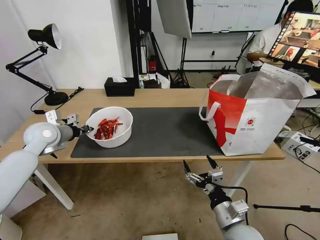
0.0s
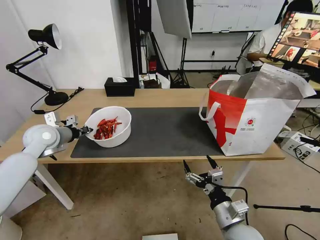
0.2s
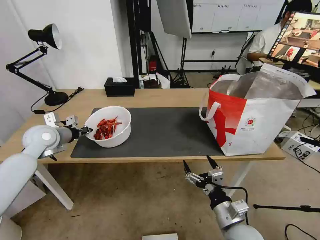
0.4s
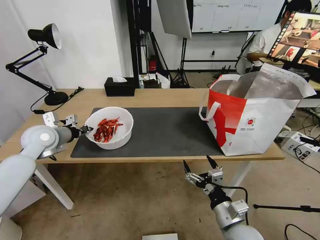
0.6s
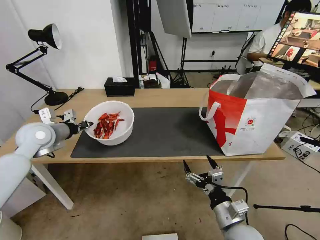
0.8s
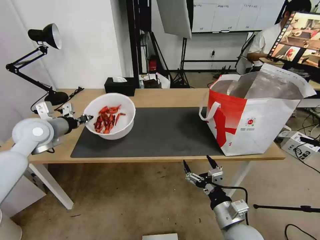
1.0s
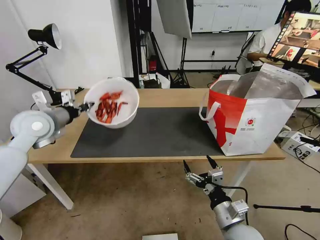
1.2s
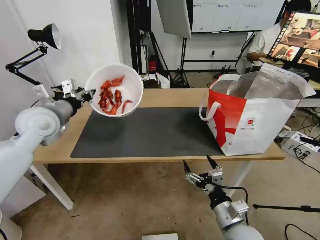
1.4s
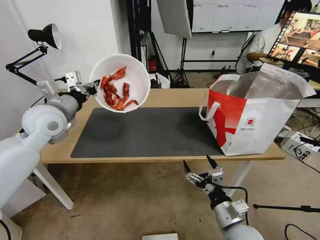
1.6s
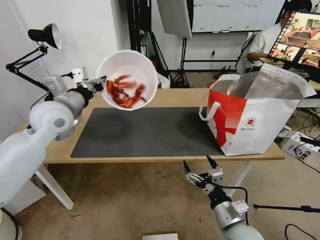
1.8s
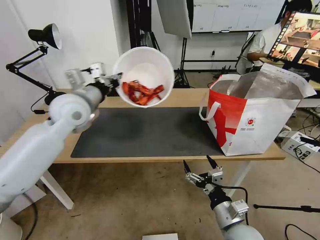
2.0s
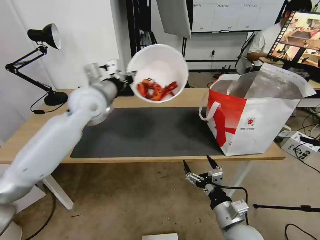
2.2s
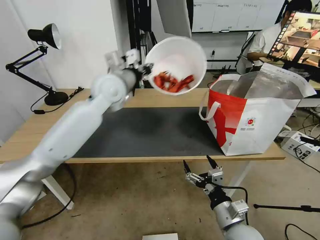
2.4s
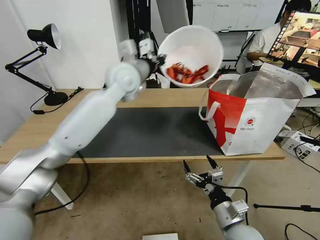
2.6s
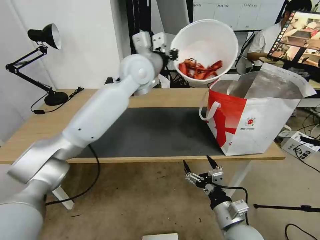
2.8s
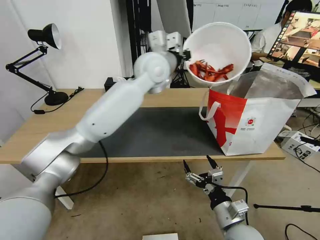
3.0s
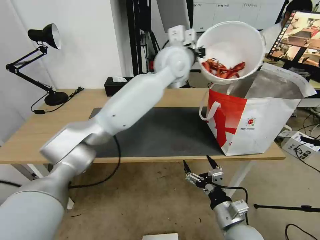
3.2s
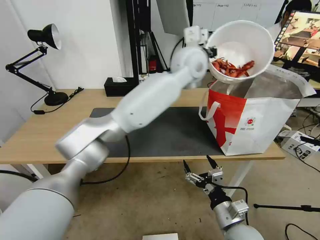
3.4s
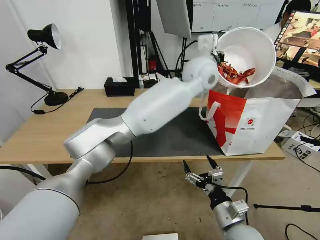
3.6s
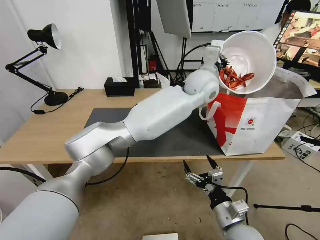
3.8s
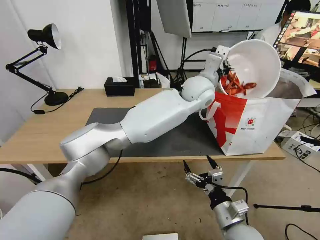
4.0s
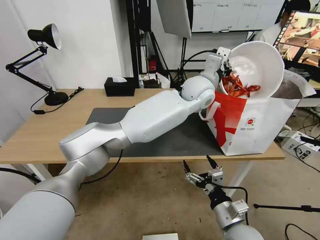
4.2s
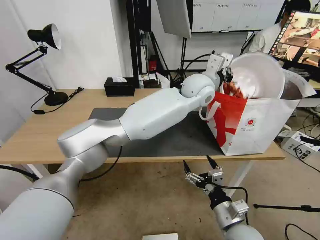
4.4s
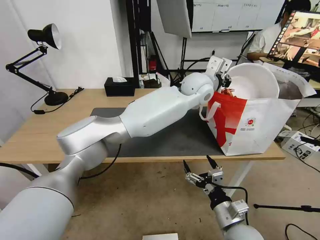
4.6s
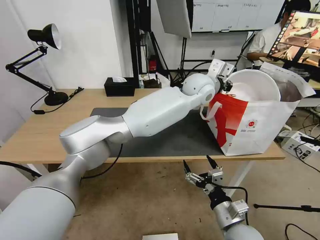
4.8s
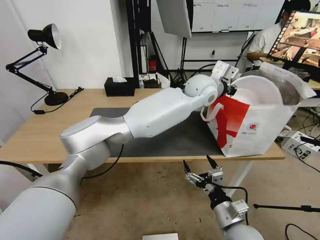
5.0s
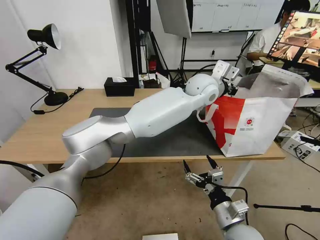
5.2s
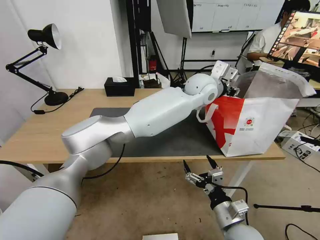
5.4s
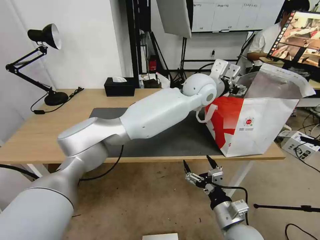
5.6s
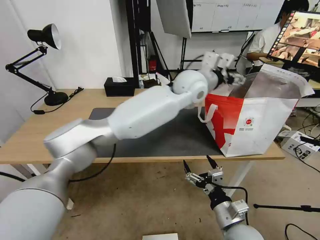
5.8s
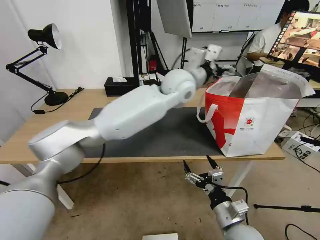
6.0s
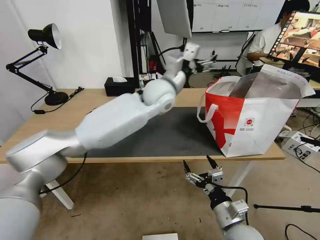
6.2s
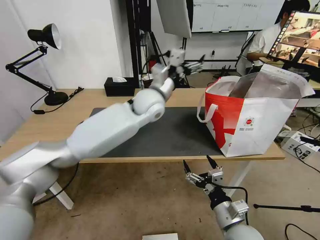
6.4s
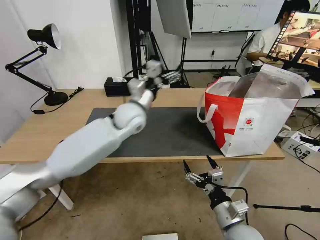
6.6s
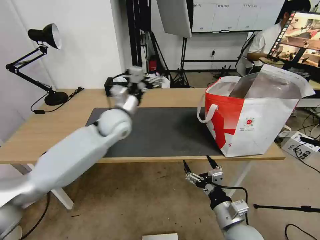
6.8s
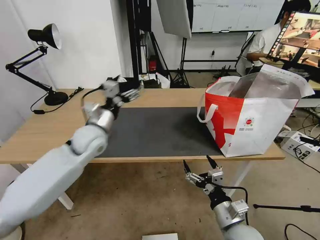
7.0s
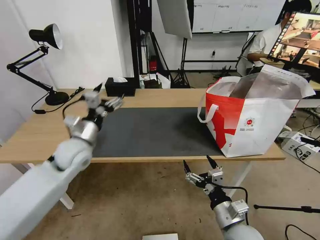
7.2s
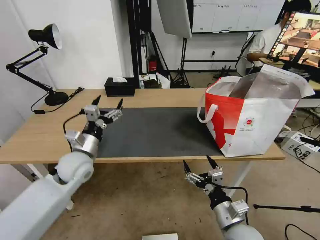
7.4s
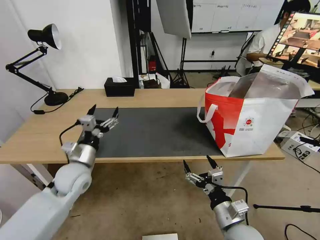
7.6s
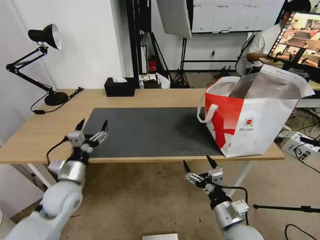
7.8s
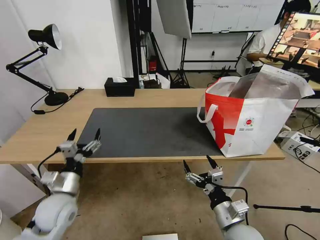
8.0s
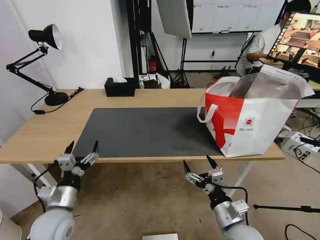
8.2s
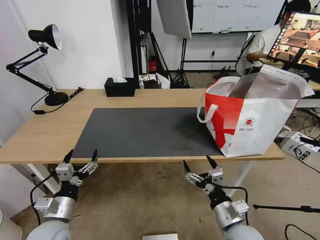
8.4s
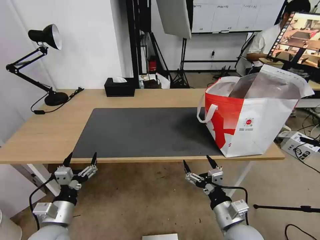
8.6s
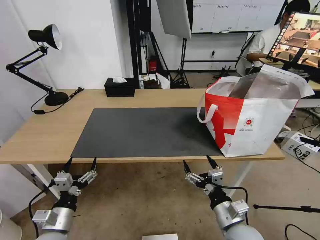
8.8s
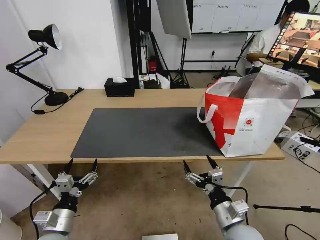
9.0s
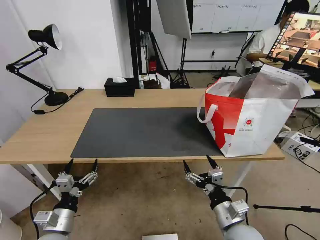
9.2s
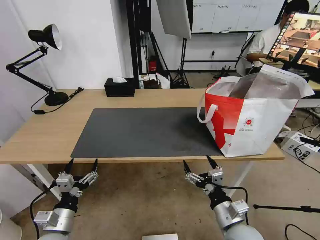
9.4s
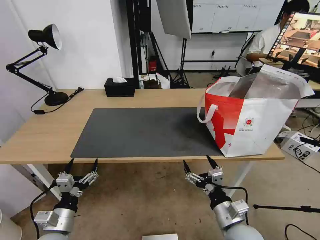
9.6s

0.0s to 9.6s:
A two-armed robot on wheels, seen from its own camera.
Task of the whole recording: Pick up the trash from the table and place it into the takeout bag.
0.0s to 1.6s: The left gripper is displaced upward and to the right by approximately 10 cm.
1.6s to 3.2s: The left gripper travels to the right by some 35 cm.
3.2s to 4.8s: The left gripper is displaced to the right and downward by approximately 10 cm.
4.8s to 6.4s: The left gripper heads to the left, covering approximately 15 cm, and opens.
6.4s to 8.0s: The left gripper goes some 40 cm to the left, backward and downward.
8.0s to 9.6s: The left gripper moves backward and downward, approximately 10 cm.

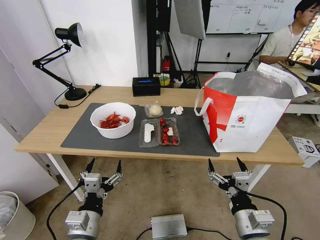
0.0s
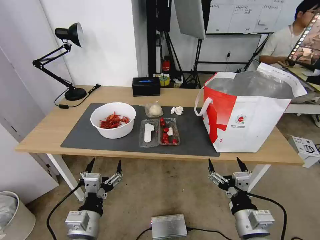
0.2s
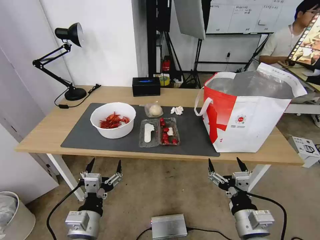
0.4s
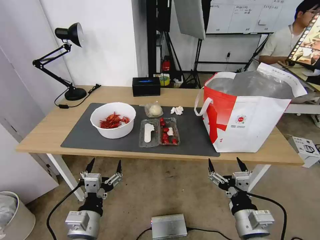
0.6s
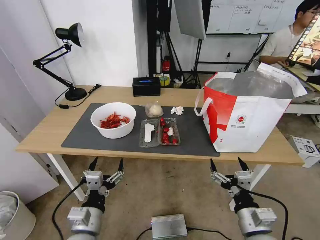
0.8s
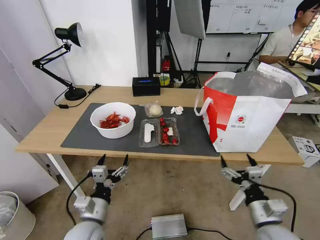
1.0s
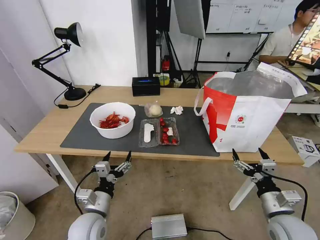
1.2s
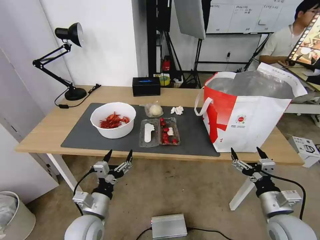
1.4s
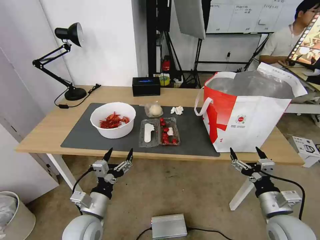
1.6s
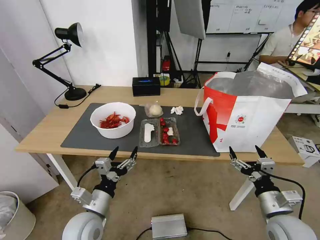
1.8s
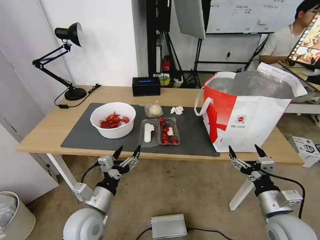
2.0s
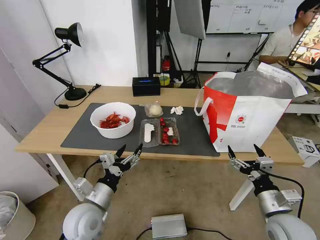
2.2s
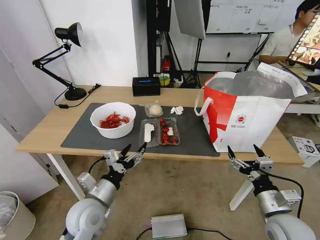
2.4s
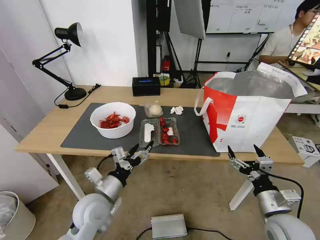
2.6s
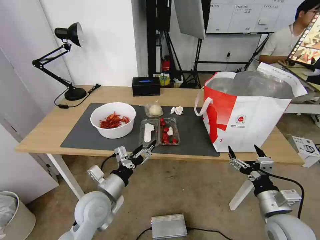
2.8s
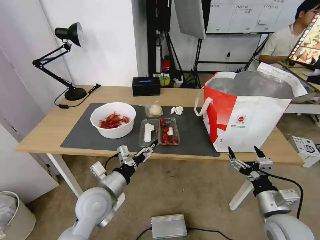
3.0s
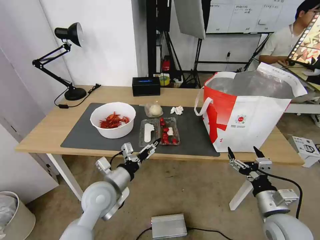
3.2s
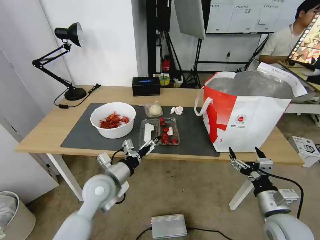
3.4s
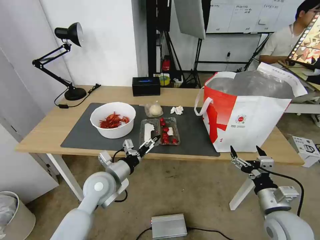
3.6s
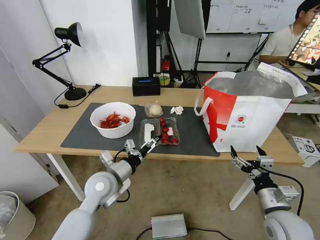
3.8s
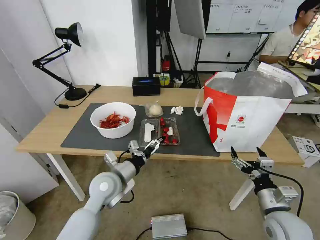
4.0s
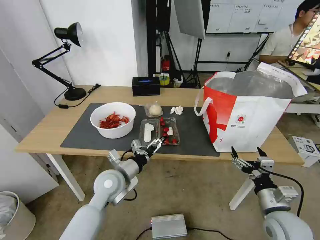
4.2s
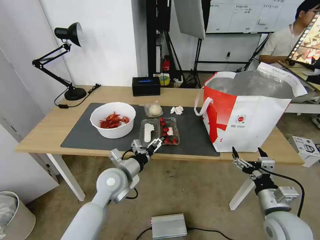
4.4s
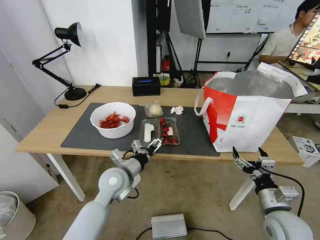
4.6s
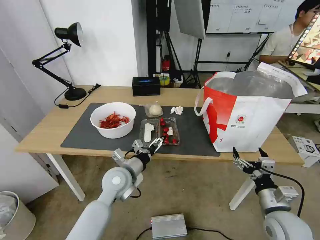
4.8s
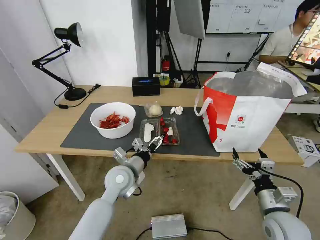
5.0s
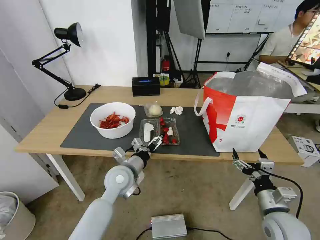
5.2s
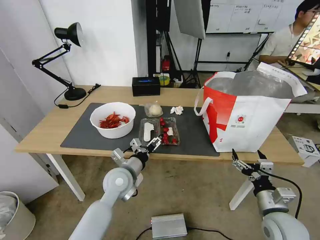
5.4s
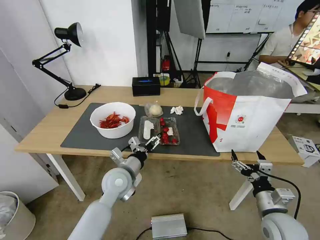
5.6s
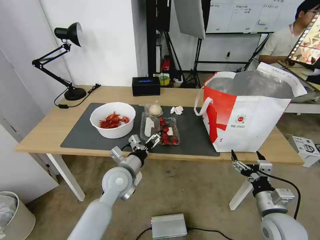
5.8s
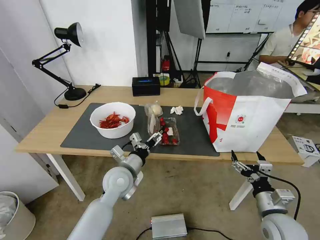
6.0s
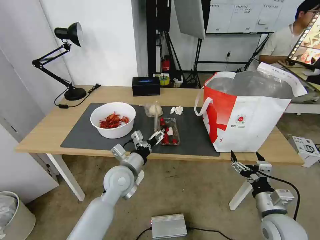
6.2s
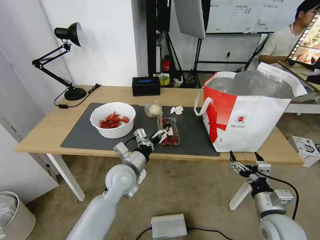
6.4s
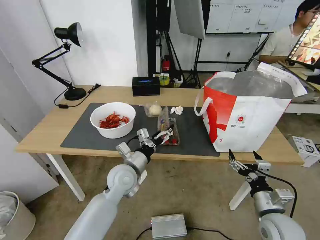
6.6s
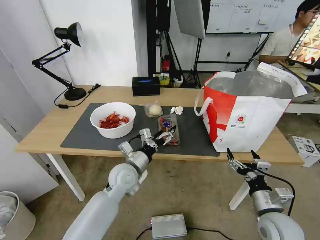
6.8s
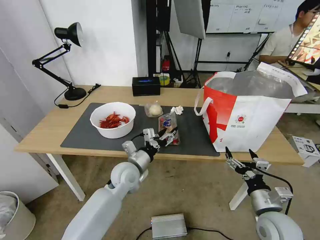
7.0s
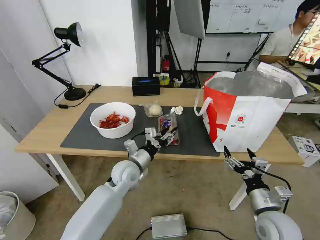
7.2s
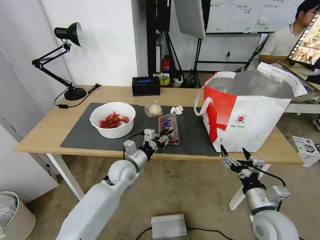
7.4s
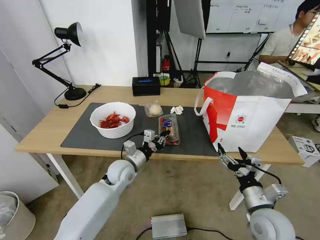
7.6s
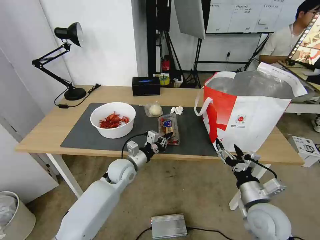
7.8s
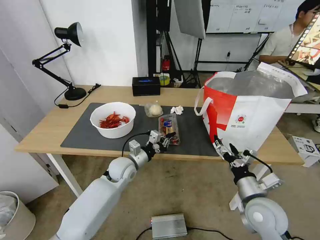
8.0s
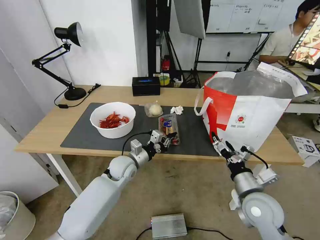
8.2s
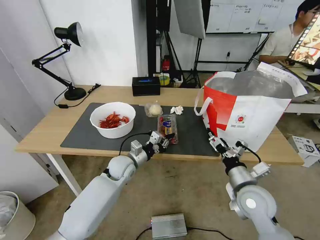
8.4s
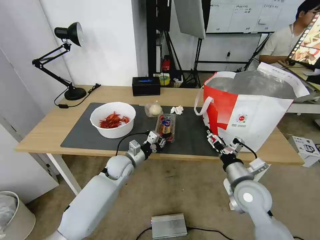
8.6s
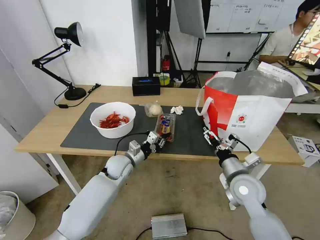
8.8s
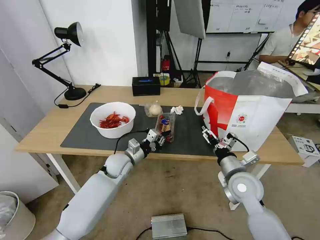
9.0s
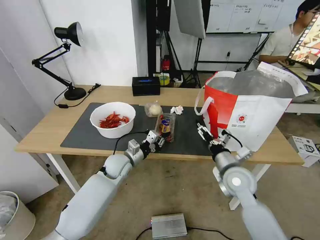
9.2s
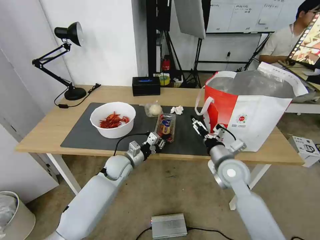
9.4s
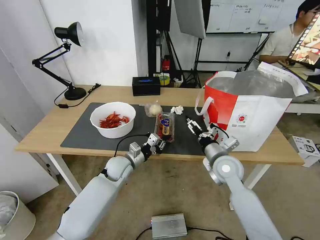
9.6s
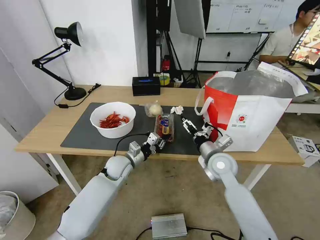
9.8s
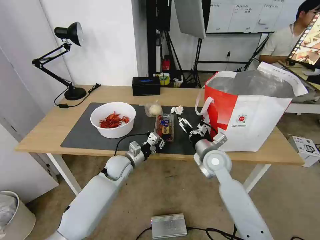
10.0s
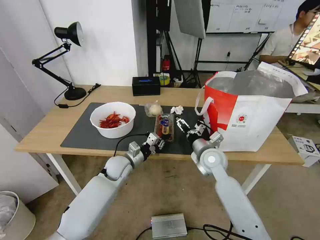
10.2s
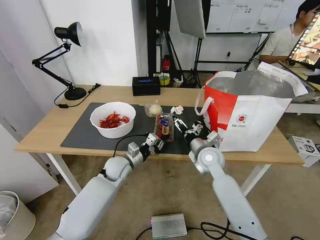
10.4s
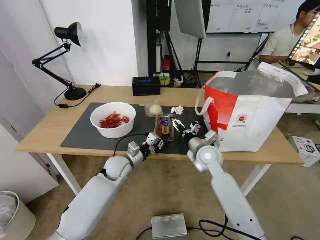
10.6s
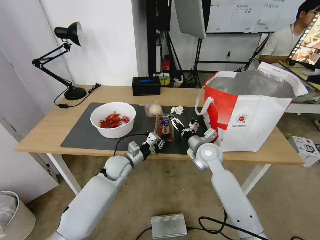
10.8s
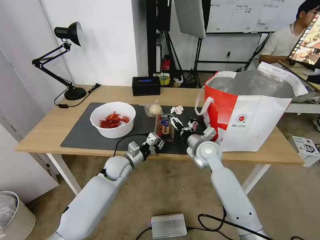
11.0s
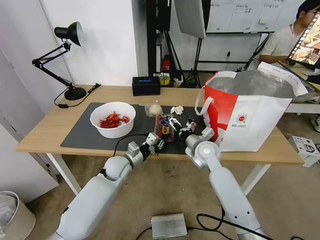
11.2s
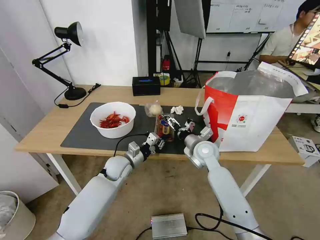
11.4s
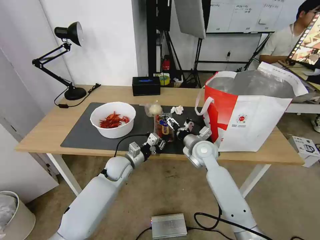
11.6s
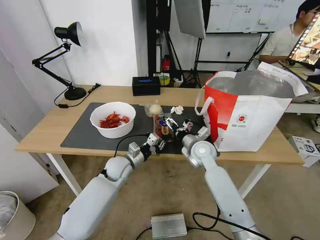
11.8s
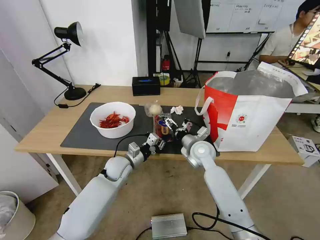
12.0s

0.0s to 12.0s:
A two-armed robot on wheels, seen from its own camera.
Task of the whole recording: Pick up the trash from the table and place it into the takeout bag.
1.6s to 3.0s: The left gripper shifts about 5 cm forward.
3.0s to 4.4s: The left gripper goes about 5 cm forward.
4.4s to 6.0s: The grippers move only a little.
6.0s to 7.6s: The left gripper heads forward, covering approximately 5 cm, and closes up.
7.6s to 9.0s: The right gripper shifts roughly 10 cm forward.
9.0s to 10.4s: The right gripper moves forward and to the left, roughly 15 cm.
10.4s to 12.0s: There are only small adjustments of the grippers.

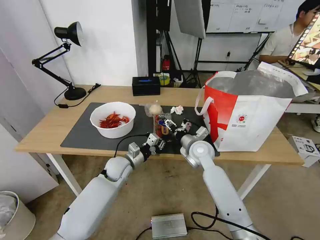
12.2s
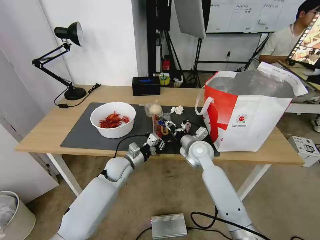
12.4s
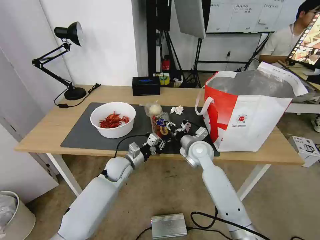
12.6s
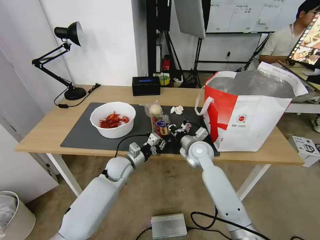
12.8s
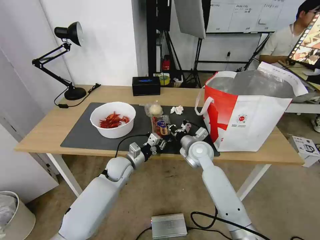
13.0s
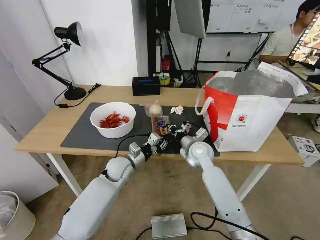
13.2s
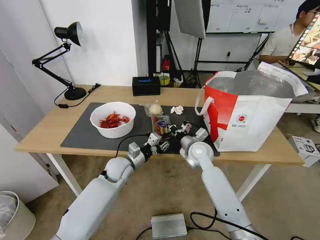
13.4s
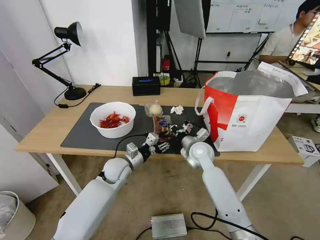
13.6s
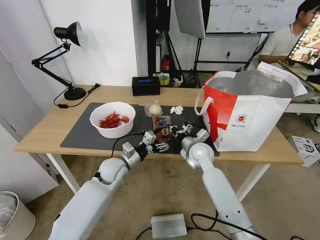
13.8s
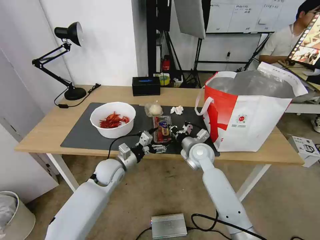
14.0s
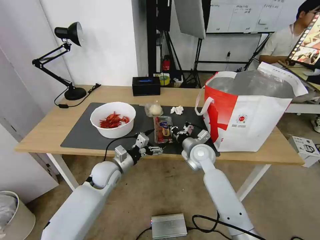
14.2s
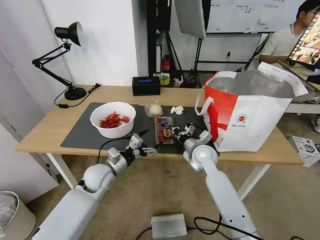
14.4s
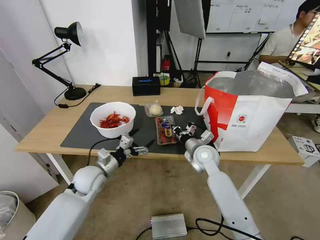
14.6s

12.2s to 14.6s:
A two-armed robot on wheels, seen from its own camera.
Task of the whole recording: Pick up the trash from the table and place it into the takeout bag.
12.2s to 13.4s: The right gripper closes up.
13.4s to 14.6s: The left gripper travels to the left by approximately 10 cm, and opens.
